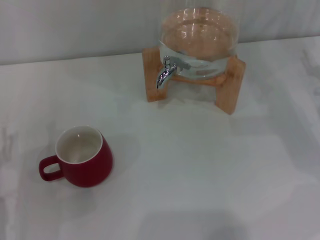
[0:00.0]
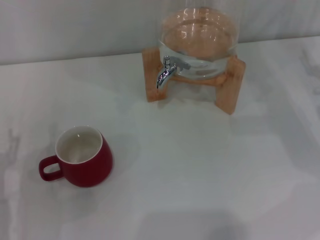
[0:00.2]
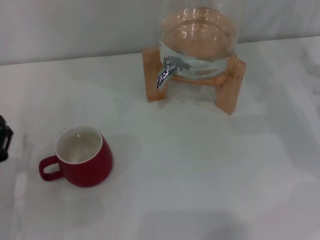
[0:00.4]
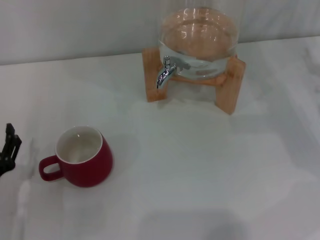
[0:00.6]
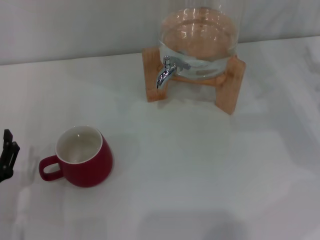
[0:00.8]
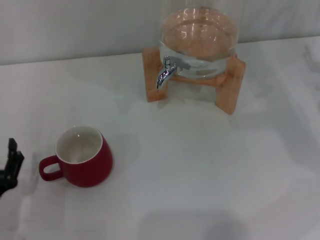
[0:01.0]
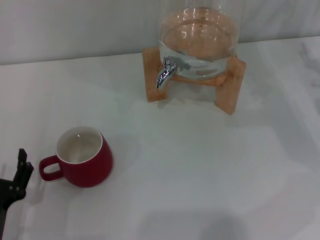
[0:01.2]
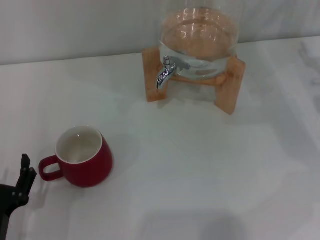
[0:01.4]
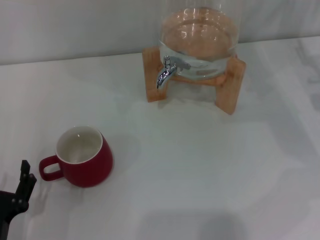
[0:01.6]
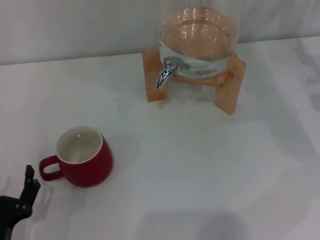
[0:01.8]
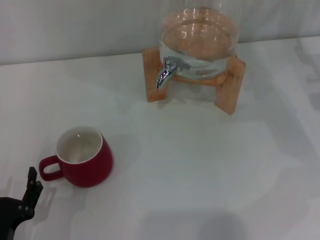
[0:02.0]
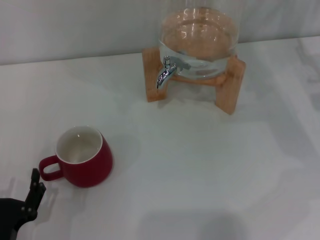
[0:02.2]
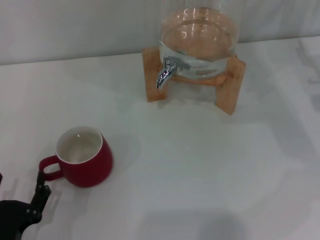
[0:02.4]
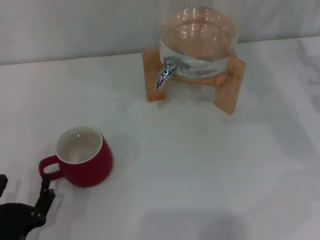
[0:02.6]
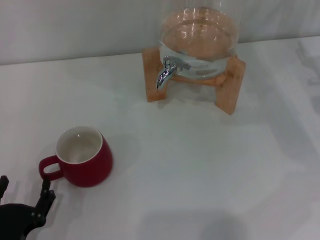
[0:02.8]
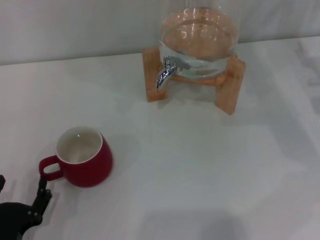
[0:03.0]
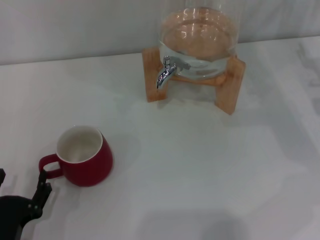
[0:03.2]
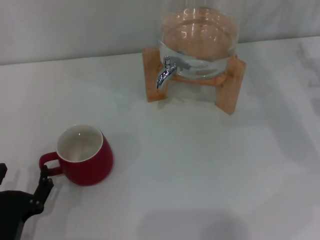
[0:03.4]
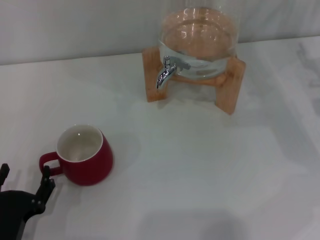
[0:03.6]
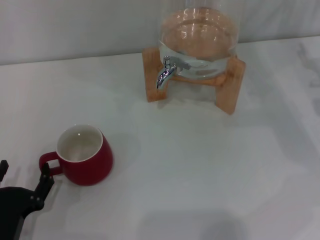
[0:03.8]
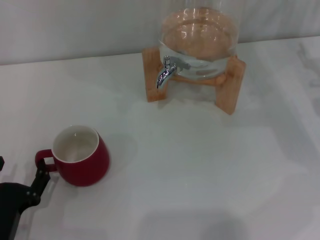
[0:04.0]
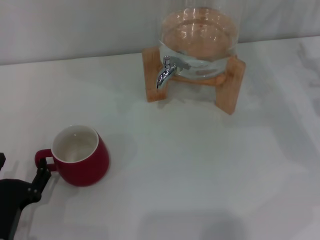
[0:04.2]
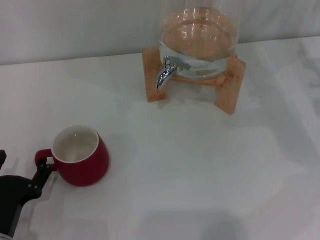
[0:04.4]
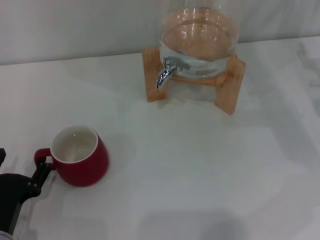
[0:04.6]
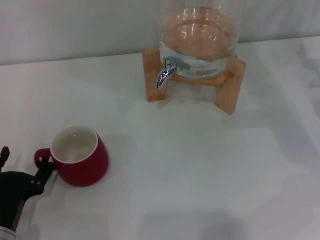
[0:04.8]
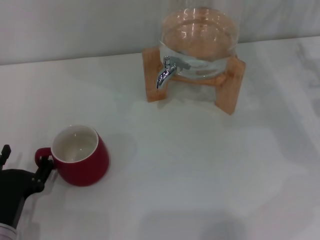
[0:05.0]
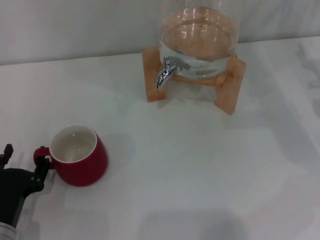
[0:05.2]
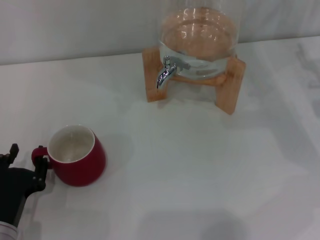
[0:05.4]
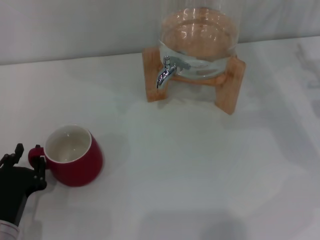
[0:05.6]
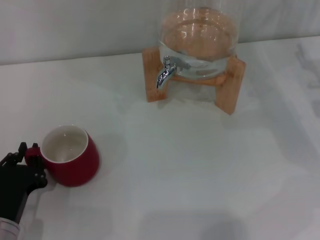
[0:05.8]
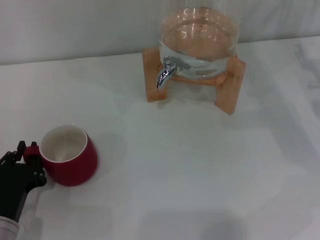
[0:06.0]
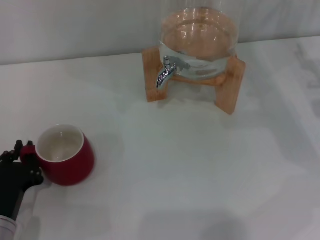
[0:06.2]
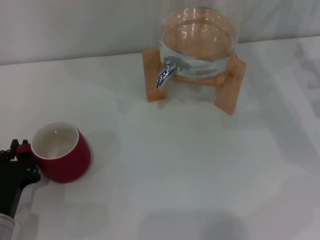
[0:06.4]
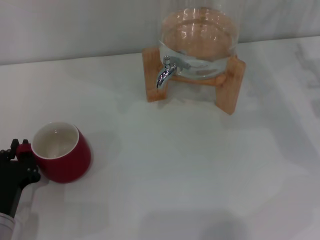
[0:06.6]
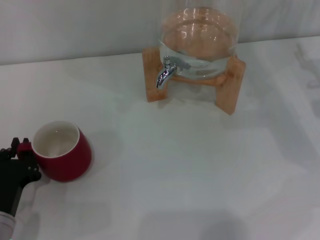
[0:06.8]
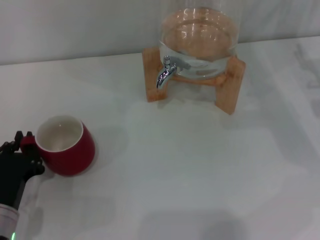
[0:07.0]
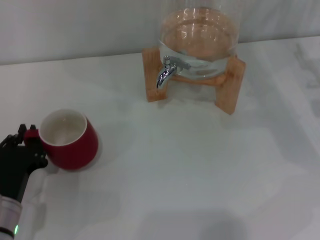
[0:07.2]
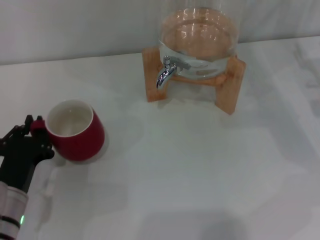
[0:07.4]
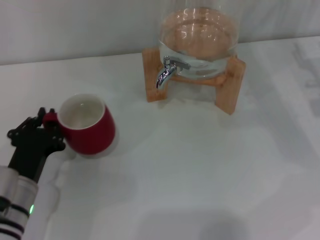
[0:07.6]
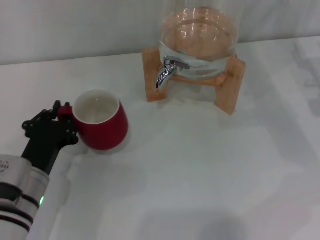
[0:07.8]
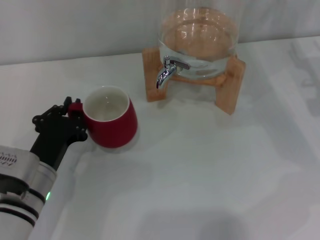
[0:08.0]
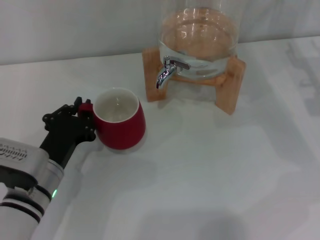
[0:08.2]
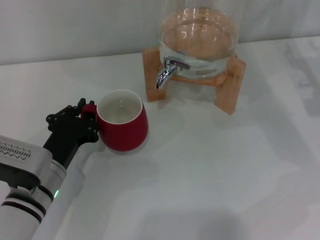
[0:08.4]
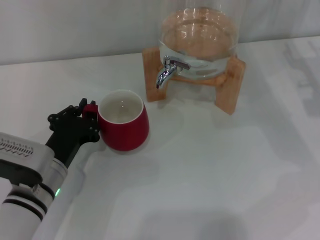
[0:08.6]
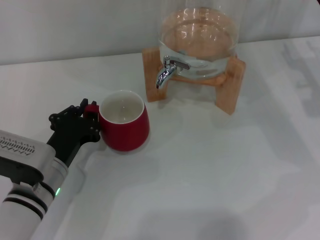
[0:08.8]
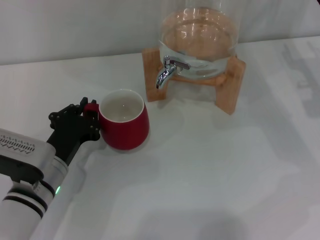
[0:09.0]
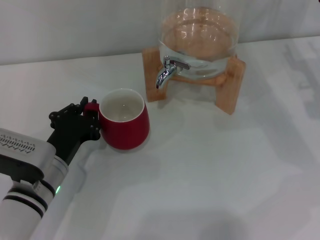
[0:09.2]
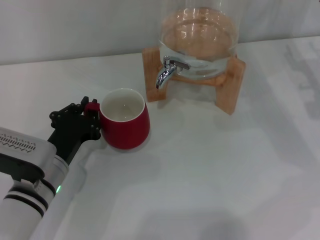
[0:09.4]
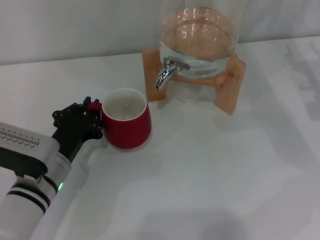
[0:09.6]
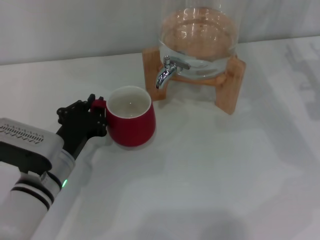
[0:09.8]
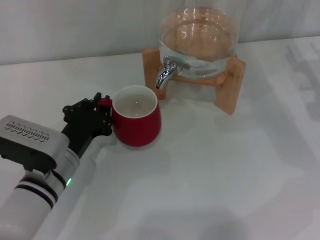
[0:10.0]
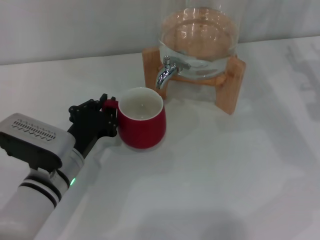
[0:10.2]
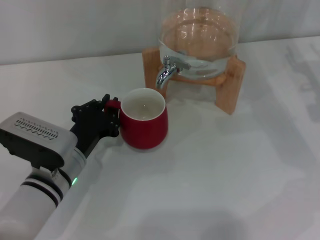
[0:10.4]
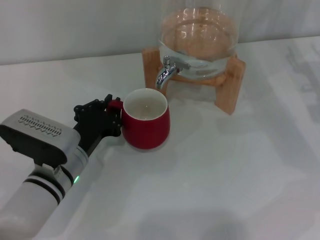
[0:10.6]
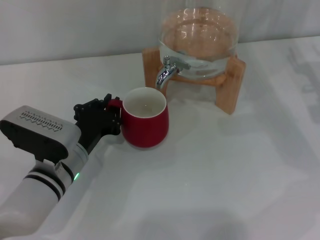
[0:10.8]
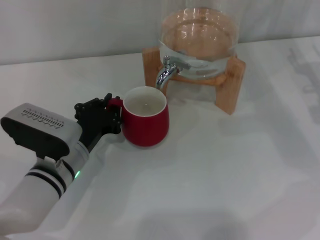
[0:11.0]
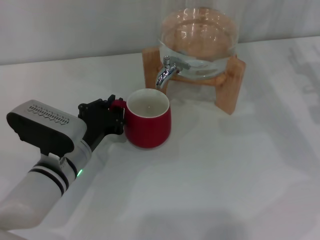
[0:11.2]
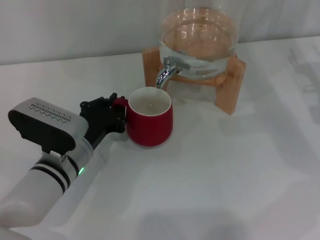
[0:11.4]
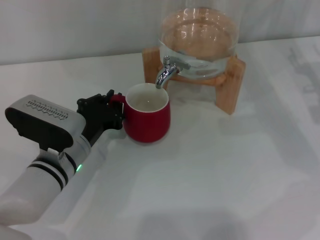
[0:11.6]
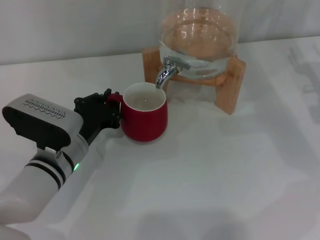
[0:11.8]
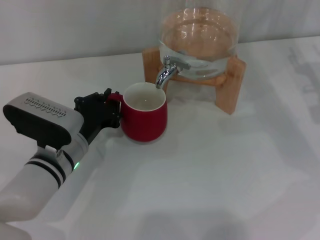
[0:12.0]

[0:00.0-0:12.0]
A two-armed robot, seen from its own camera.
Task of the whole recording: the left gripper pick up the red cup and place it horizontally under the faucet, the right gripper turn on the faucet to fill the cup, and then turn off the faucet.
0:00.0 to 0:01.6: The left gripper is displaced backward by some 10 cm.
0:01.6 to 0:04.4: The grippers make only small movements.
0:04.4 to 0:06.0: The left gripper closes.
0:06.0 to 0:07.6: The left gripper moves roughly 5 cm.
0:07.6 to 0:09.0: The grippers stay close to where they were, moving slightly.
0:09.0 to 0:12.0: The grippers stay close to where they were, moving slightly.

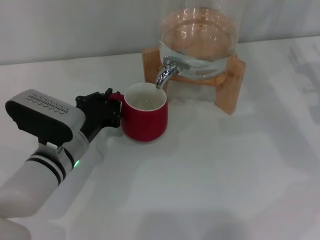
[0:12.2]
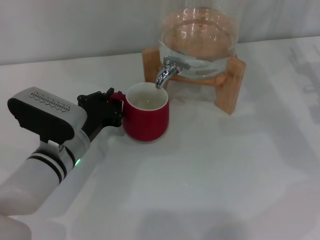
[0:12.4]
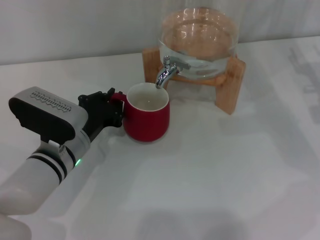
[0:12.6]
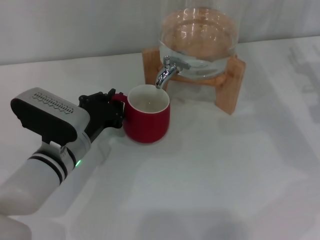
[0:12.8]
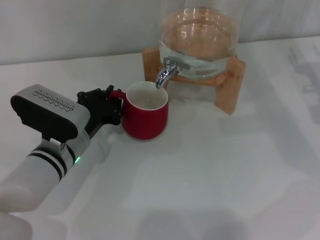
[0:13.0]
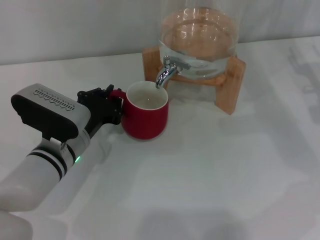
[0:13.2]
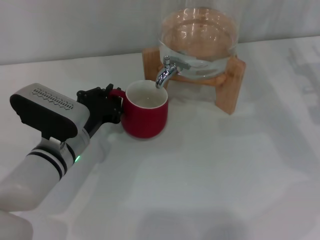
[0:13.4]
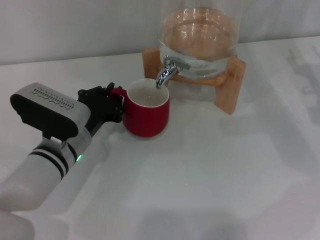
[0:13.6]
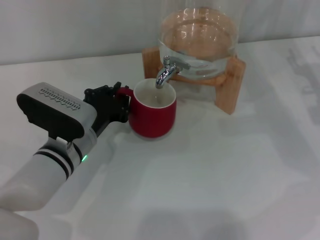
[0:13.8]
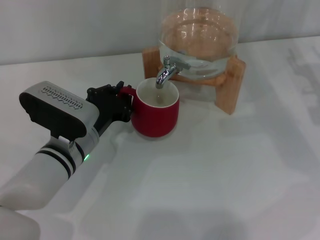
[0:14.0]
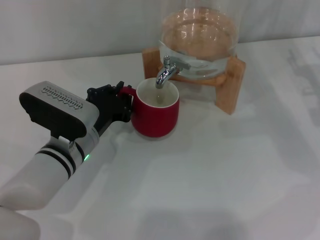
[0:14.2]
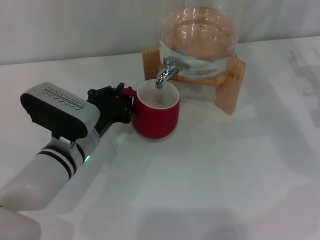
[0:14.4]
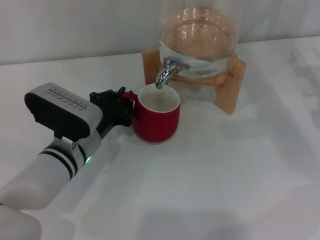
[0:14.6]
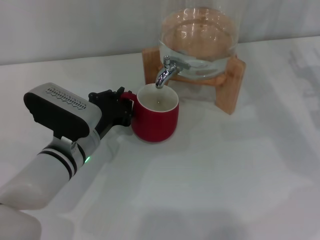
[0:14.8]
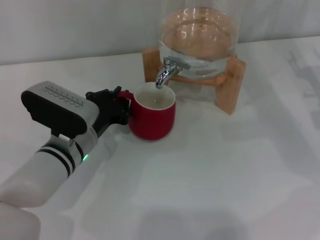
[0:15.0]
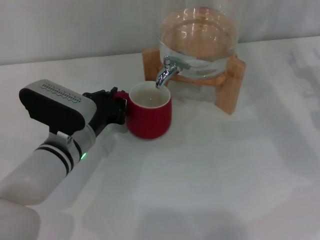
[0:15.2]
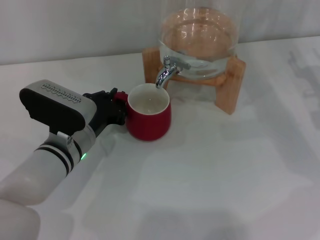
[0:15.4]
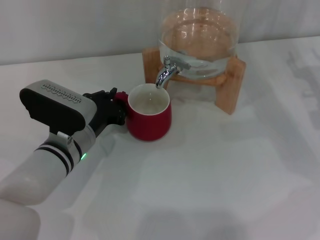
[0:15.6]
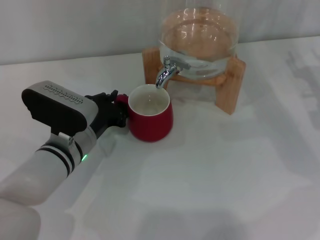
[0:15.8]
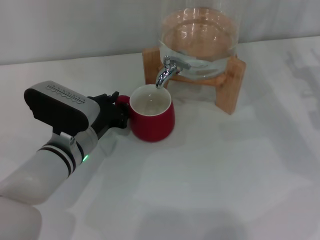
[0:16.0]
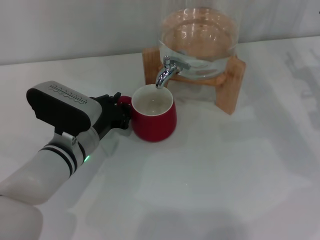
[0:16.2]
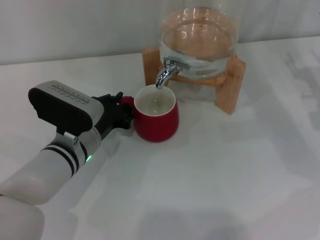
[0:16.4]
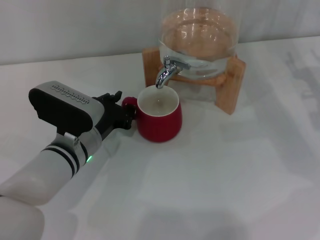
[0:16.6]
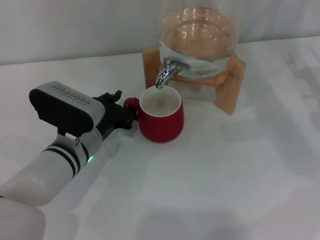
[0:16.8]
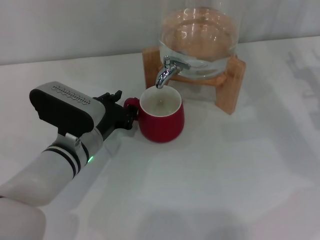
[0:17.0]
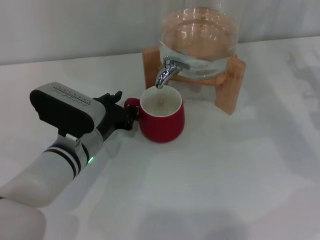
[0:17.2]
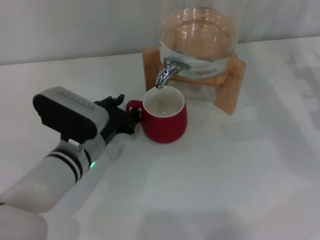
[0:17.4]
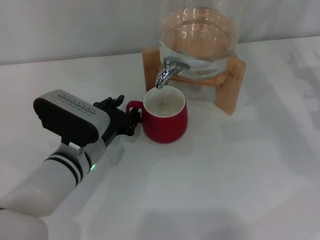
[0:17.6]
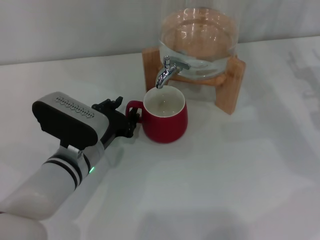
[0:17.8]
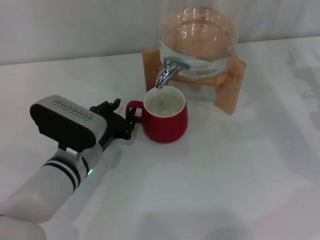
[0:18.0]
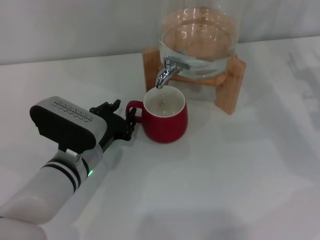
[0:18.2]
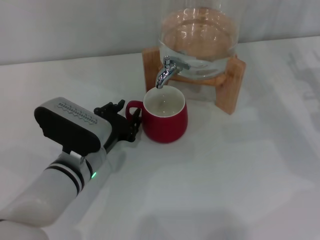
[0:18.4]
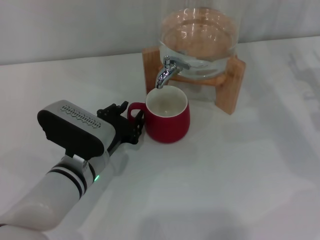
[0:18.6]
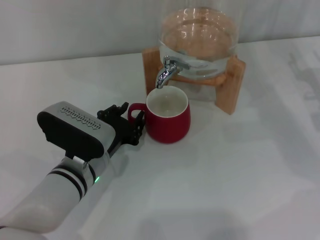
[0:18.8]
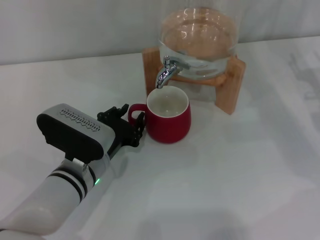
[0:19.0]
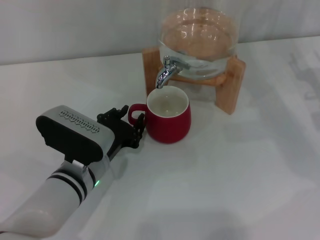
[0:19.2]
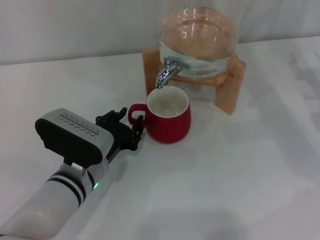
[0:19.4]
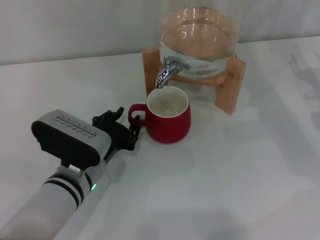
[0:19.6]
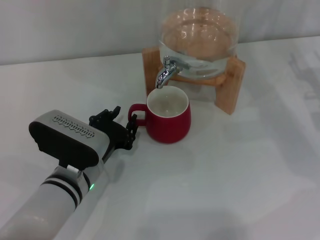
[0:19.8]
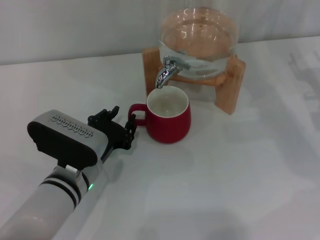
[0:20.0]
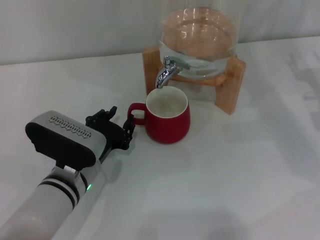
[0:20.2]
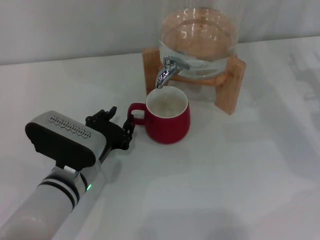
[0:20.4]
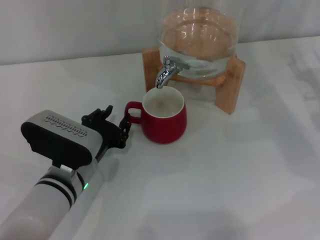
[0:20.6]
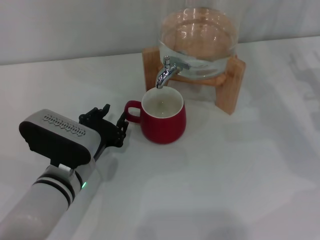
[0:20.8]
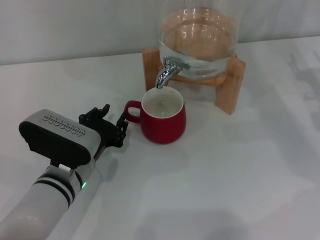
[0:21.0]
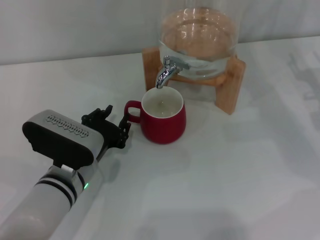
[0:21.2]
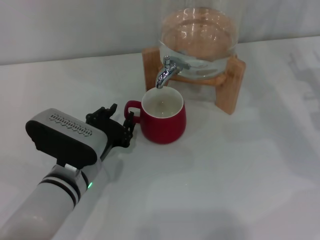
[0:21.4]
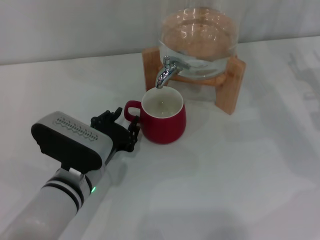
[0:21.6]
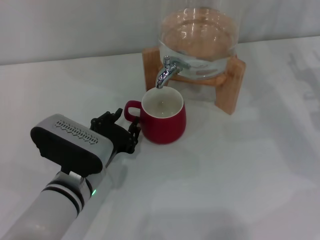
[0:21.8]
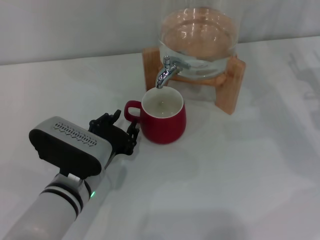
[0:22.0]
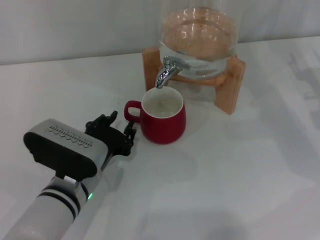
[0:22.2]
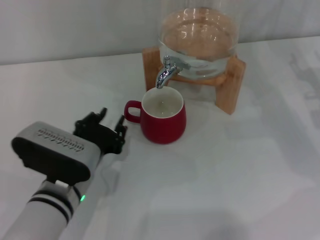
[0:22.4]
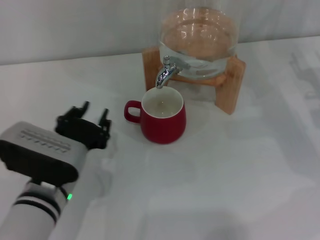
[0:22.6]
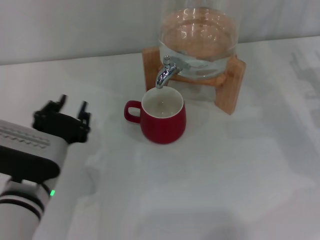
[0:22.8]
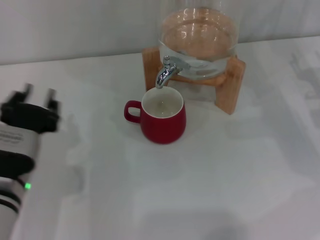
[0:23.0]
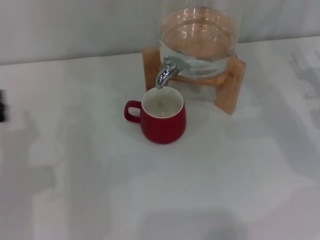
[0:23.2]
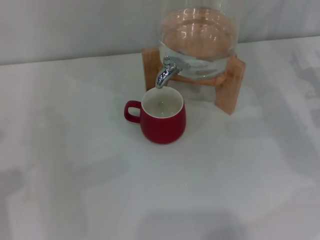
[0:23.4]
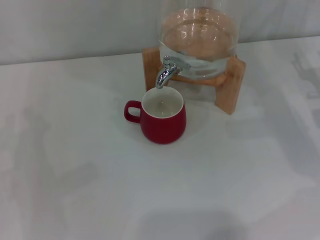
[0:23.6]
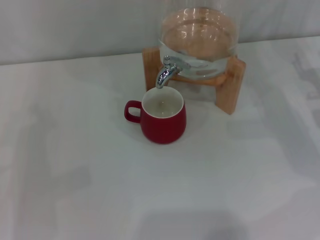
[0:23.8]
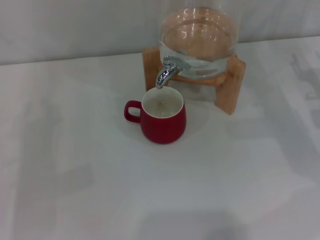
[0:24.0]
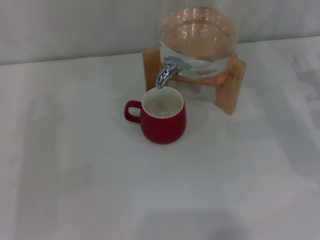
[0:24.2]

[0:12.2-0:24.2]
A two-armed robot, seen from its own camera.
Task of the whole recording: the left gripper pick up the red cup and place it horizontally under the faucet, the right gripper turn on the faucet to fill the cup, and then turn off the faucet.
Step, 0:12.2 to 0:22.4: Move the cup beneath the water dispenser nozzle with the left gripper.
0:12.2 to 0:15.2: The grippers stay close to where they were, moving slightly.
0:15.2 to 0:16.6: Both grippers stay about where they are.
0:16.6 to 0:19.8: The grippers make only small movements.
0:19.8 to 0:21.2: The two grippers keep their place.
0:21.2 to 0:22.6: The grippers move only a little.
0:22.6 to 0:24.2: The left gripper moves to the left, roughly 15 cm.
